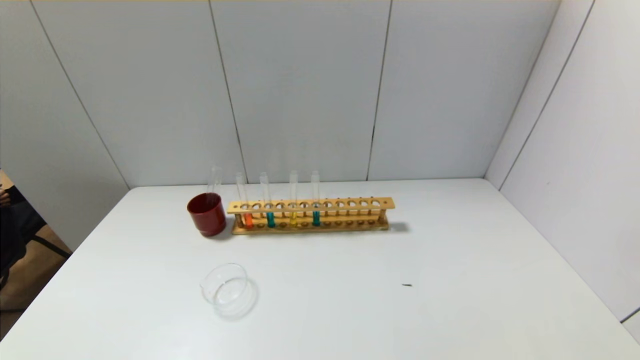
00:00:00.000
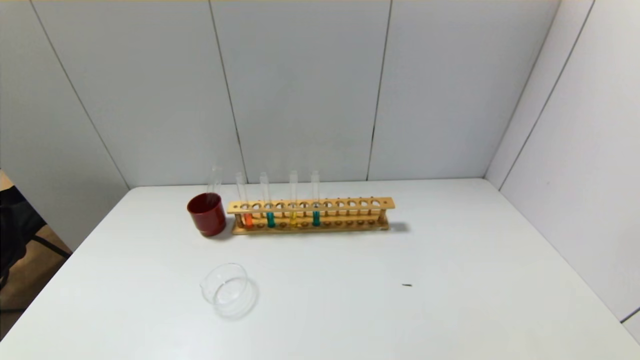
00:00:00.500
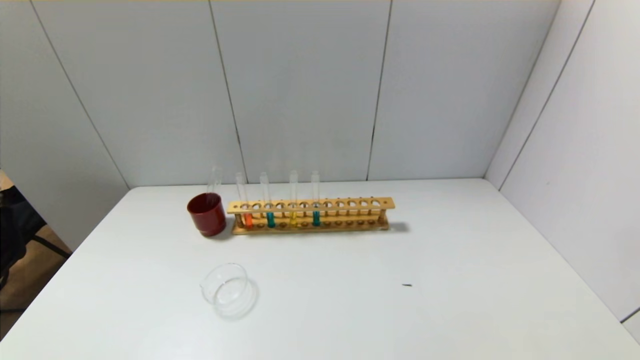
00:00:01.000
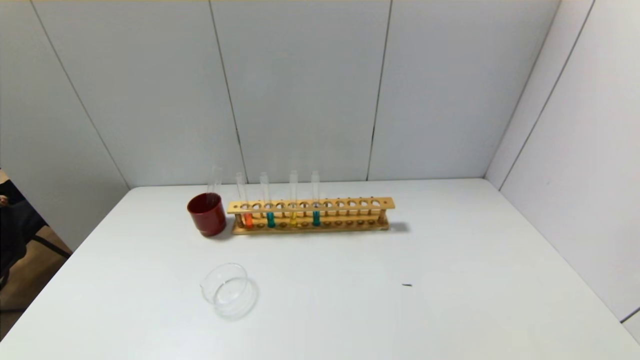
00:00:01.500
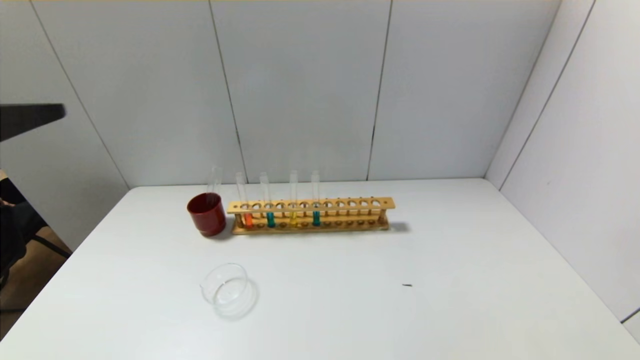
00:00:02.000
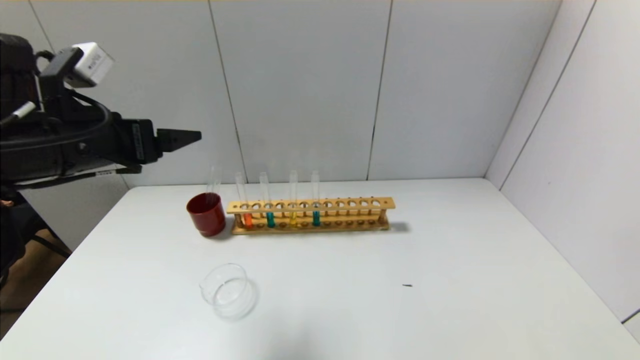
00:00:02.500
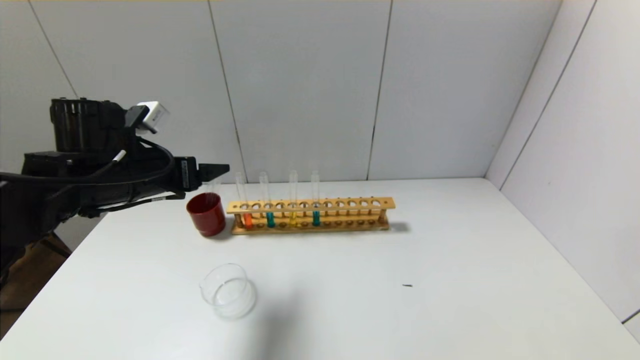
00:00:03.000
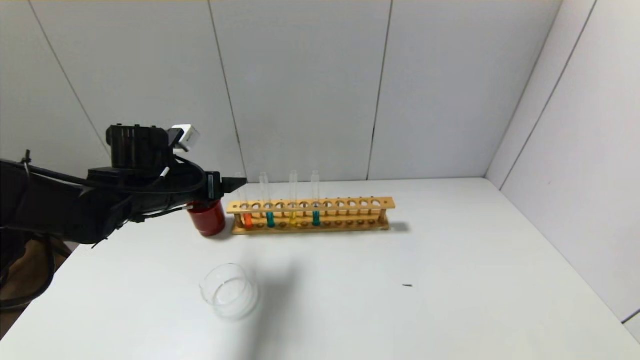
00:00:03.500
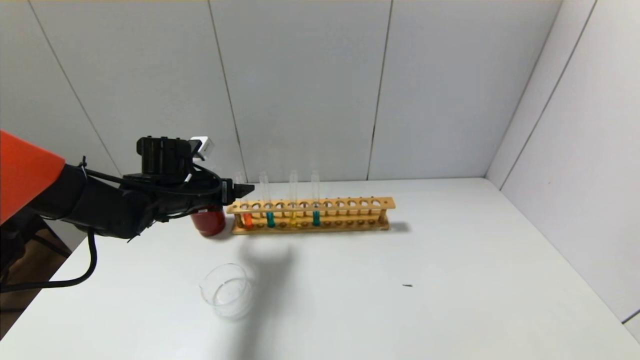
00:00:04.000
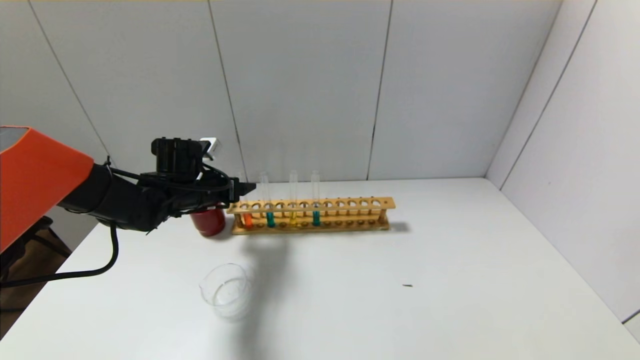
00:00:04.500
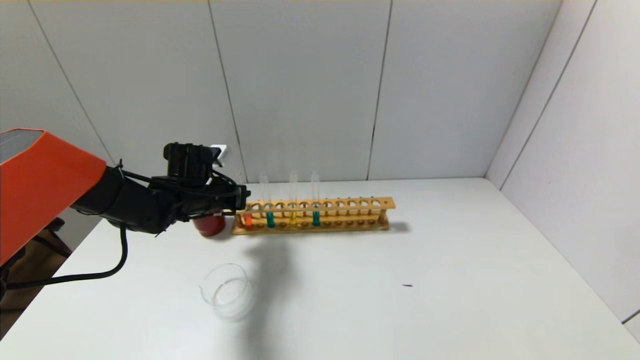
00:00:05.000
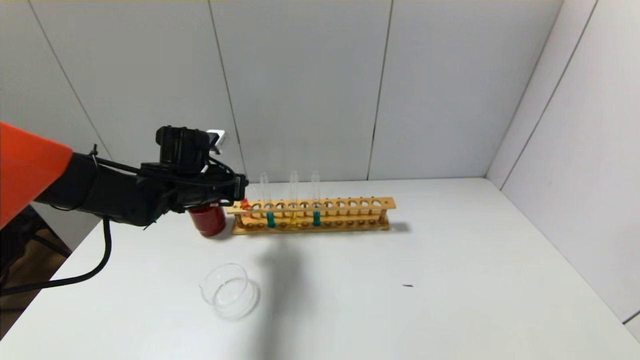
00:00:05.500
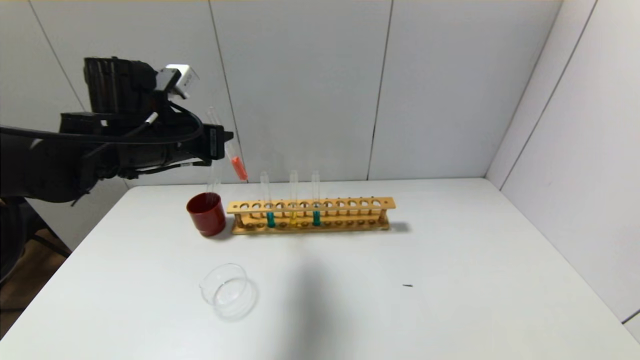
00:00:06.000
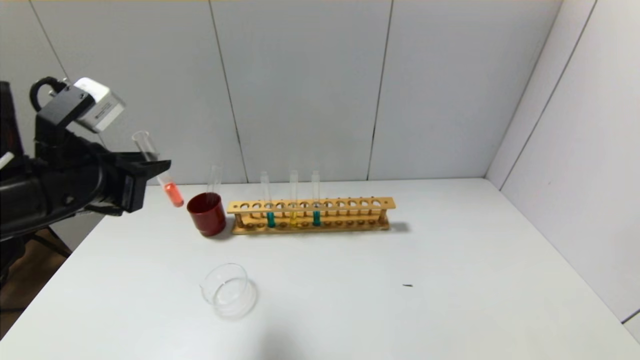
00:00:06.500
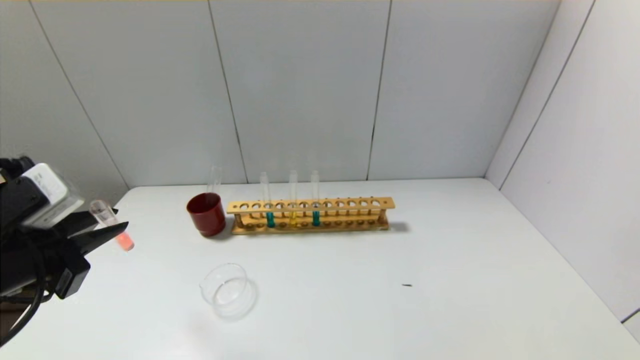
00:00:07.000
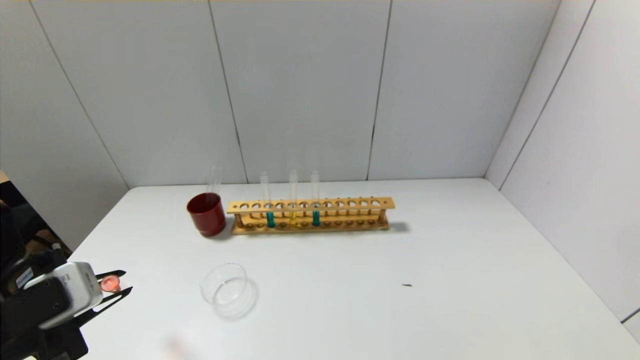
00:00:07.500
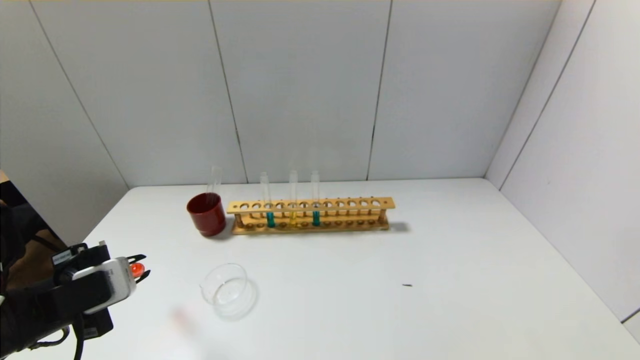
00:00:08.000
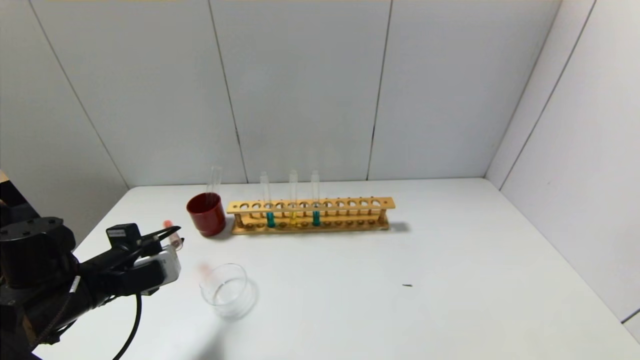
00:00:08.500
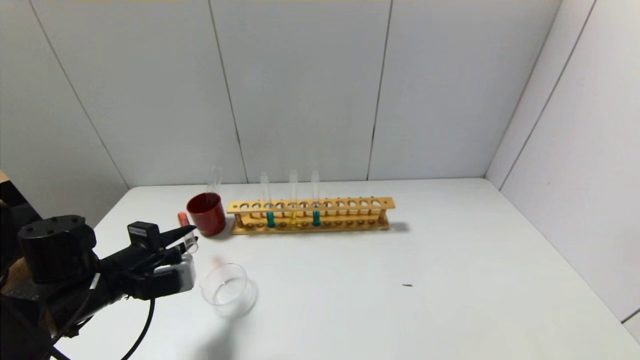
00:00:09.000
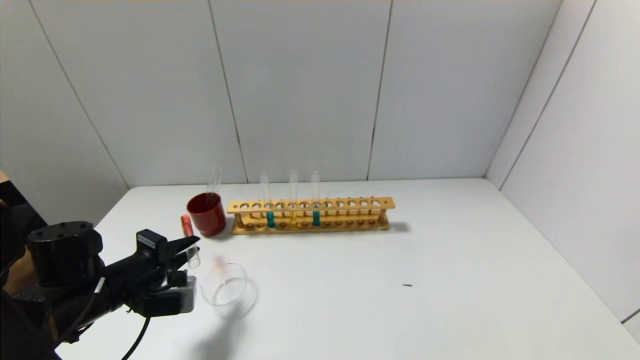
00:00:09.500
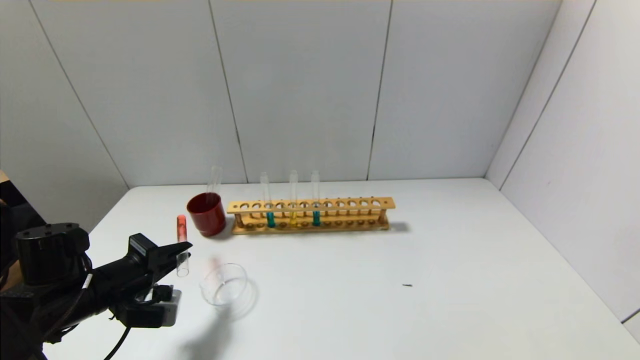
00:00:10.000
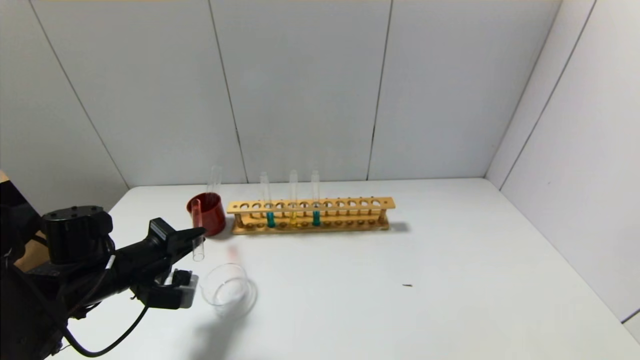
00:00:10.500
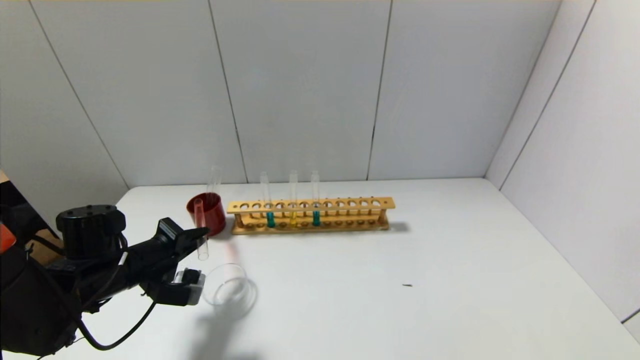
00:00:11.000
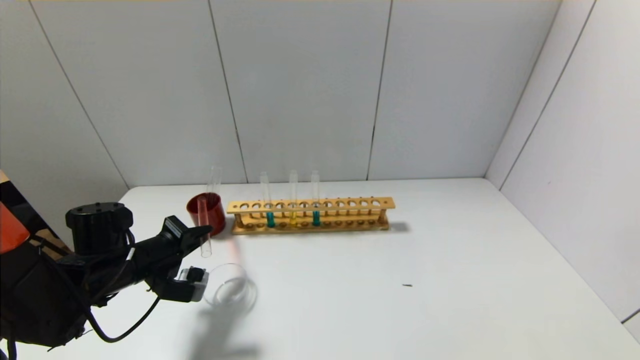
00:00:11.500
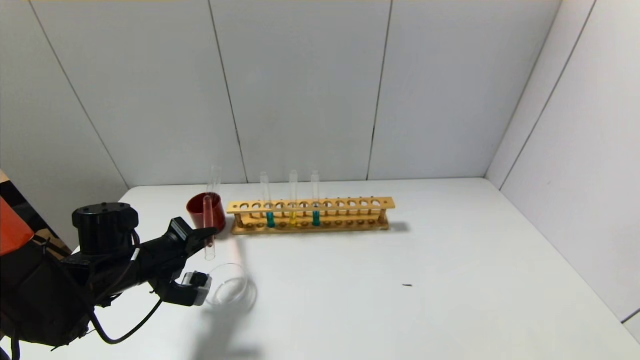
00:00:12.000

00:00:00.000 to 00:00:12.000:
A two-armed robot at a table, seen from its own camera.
Step, 00:00:00.000 to 00:00:05.000: Grasp the red reagent with the left gripper.
00:00:00.000 to 00:00:02.000: The left gripper heads upward and forward, covering approximately 30 cm.
00:00:02.000 to 00:00:04.000: The left gripper goes about 35 cm forward and downward.
00:00:04.000 to 00:00:06.000: The left gripper heads upward and backward, covering some 15 cm, and closes.
00:00:06.000 to 00:00:08.000: The left gripper moves backward, downward and to the left, roughly 20 cm.
00:00:08.000 to 00:00:10.000: The left gripper is displaced forward and downward by some 10 cm.
00:00:10.000 to 00:00:12.000: The left gripper moves approximately 5 cm.

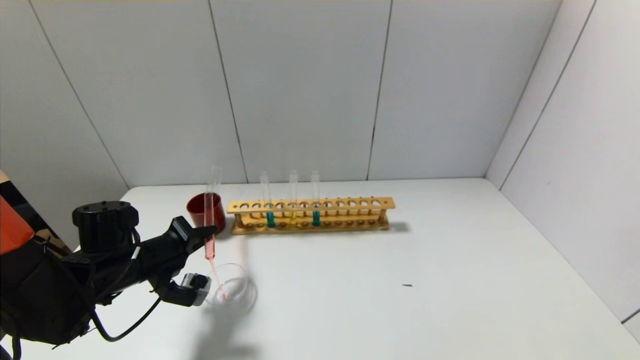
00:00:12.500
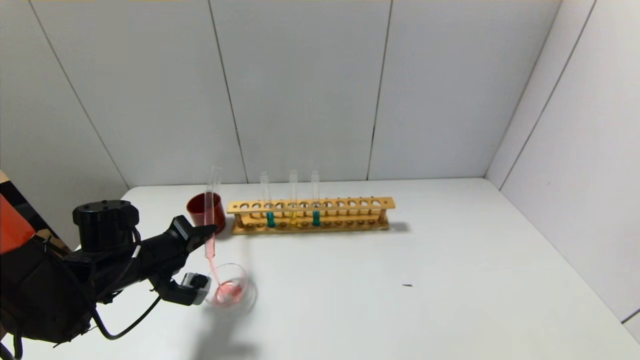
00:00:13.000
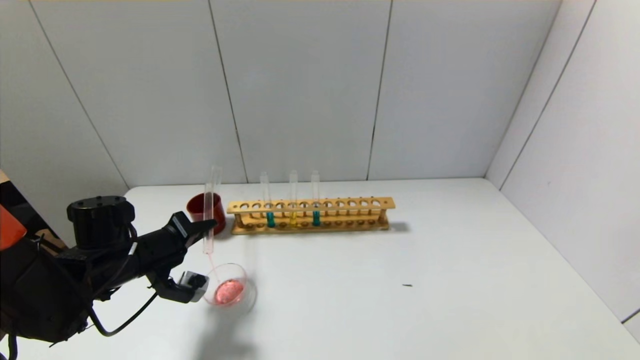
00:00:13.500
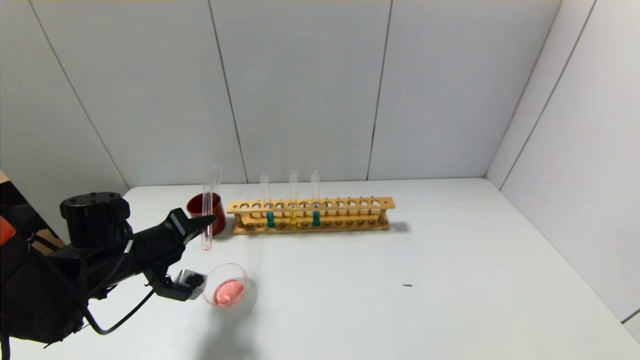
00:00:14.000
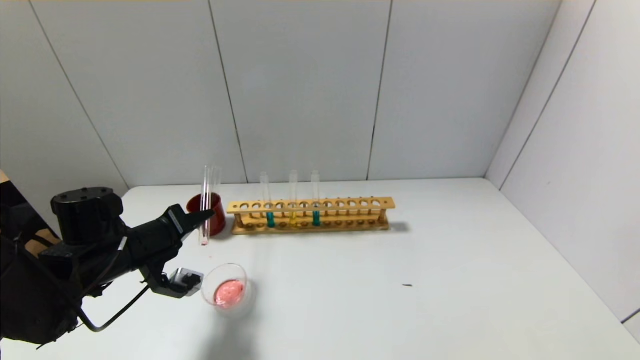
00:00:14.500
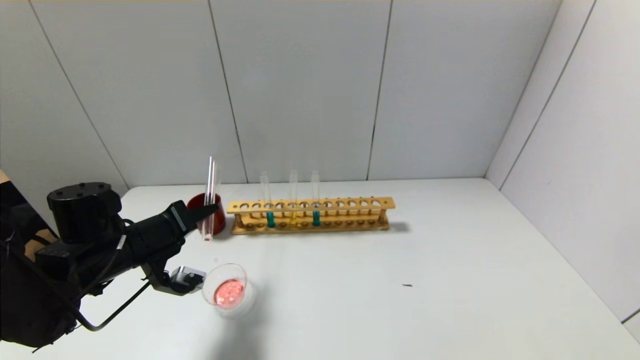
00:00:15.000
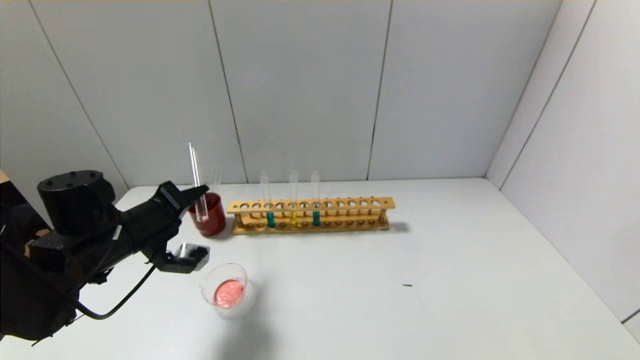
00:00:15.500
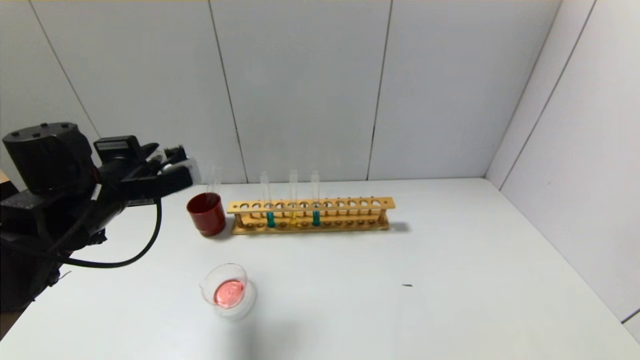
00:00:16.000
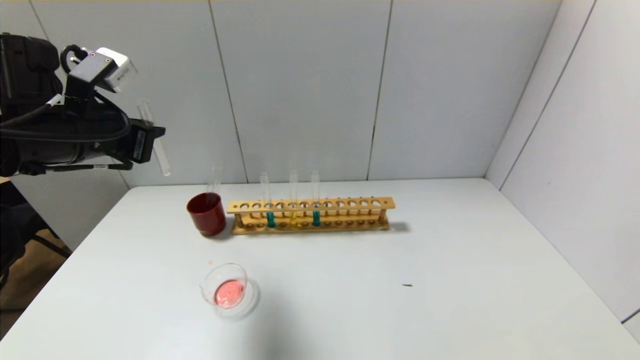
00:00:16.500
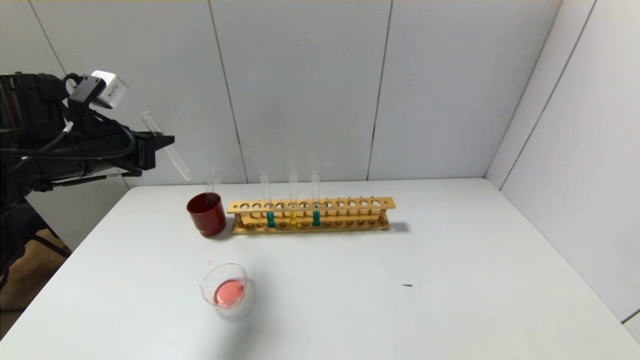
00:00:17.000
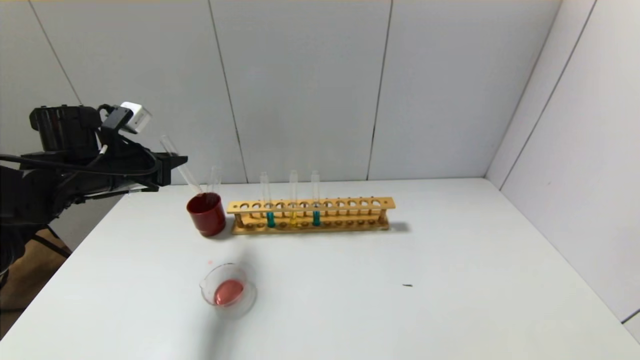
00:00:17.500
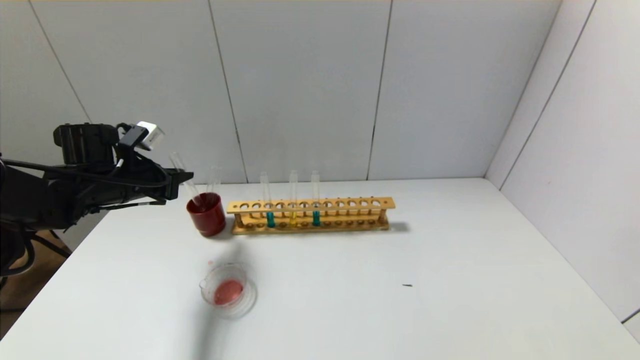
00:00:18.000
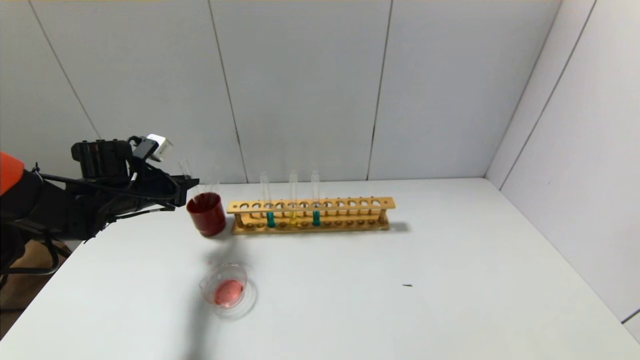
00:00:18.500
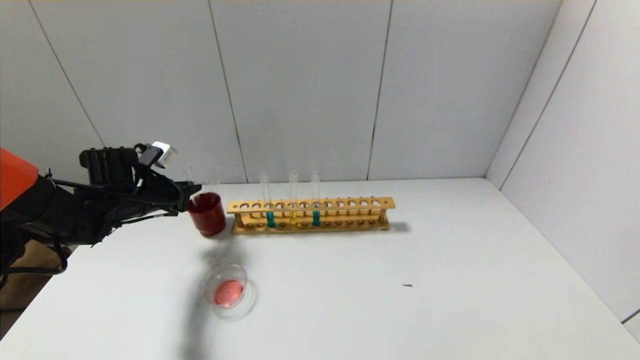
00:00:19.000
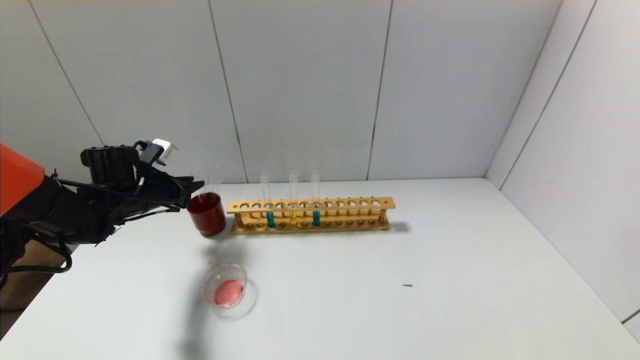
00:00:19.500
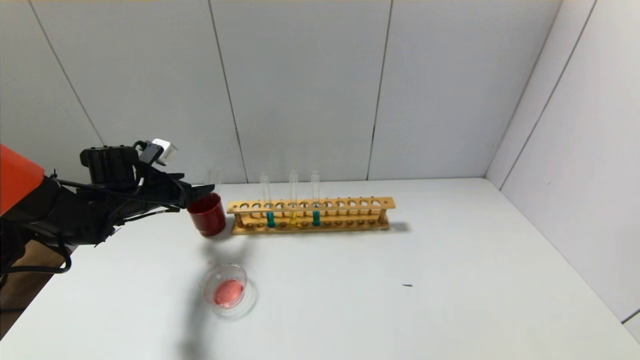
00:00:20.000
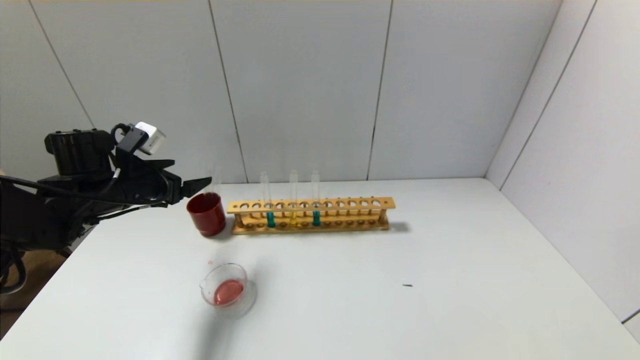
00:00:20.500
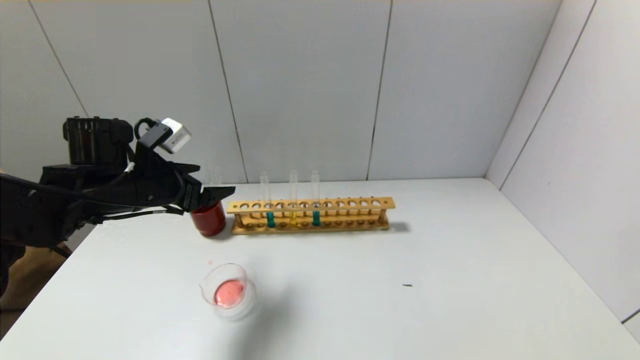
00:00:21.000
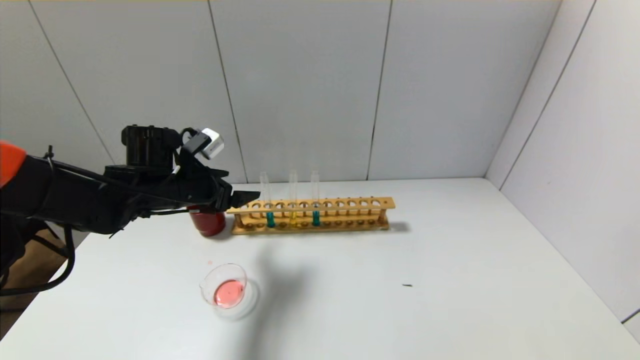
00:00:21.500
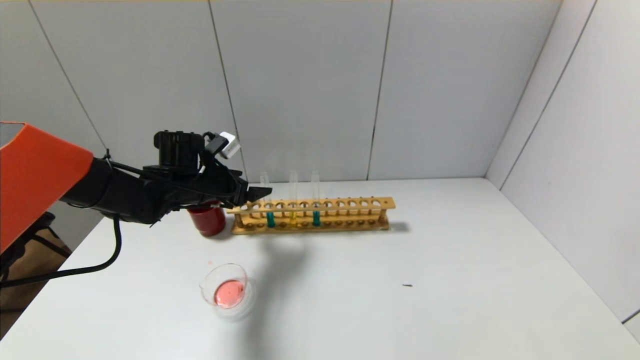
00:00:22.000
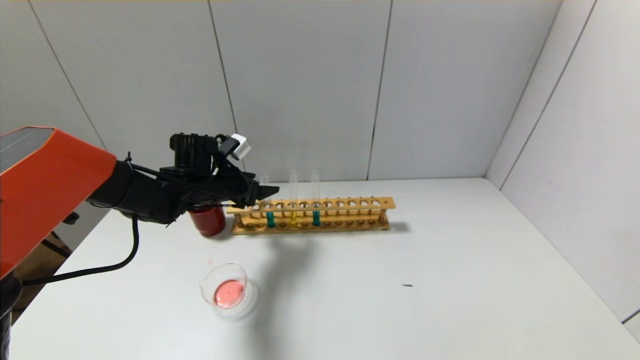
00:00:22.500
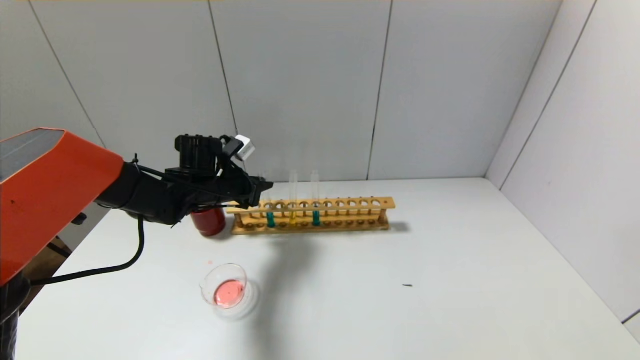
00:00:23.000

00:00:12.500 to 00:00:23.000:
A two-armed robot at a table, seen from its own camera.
Step, 00:00:12.500 to 00:00:15.500: Pour the red reagent into the graduated cylinder with the left gripper.
Step, 00:00:16.000 to 00:00:19.500: Place the test tube into the brown cup with the left gripper.
Step, 00:00:20.000 to 00:00:23.000: Grasp the blue reagent with the left gripper.
00:00:12.500 to 00:00:14.500: There are only small adjustments of the grippers.
00:00:14.500 to 00:00:16.500: The left gripper shifts roughly 15 cm upward.
00:00:16.500 to 00:00:19.000: The left gripper goes some 20 cm downward and forward.
00:00:19.000 to 00:00:21.000: The left gripper moves upward, backward and to the right, roughly 10 cm, and opens.
00:00:21.000 to 00:00:23.000: The left gripper heads forward, to the right and downward, covering approximately 15 cm, and closes its fingers.
